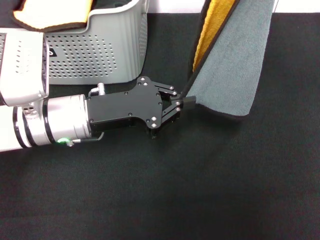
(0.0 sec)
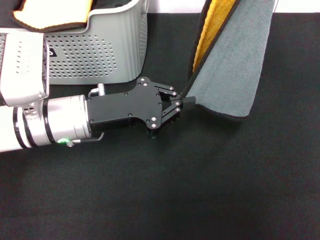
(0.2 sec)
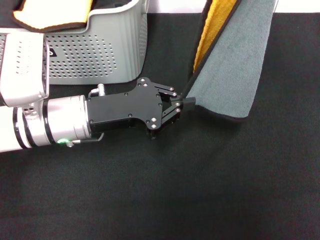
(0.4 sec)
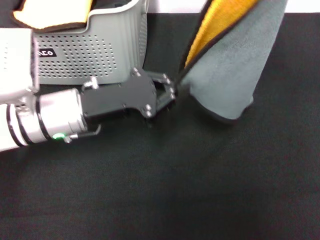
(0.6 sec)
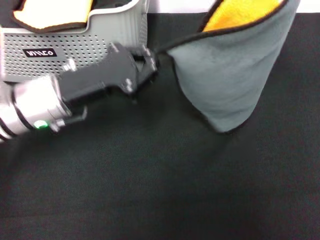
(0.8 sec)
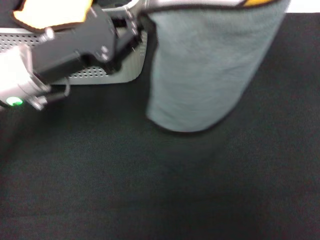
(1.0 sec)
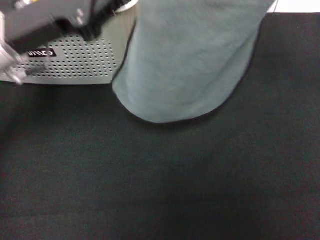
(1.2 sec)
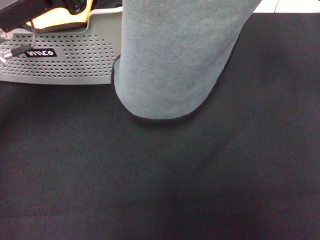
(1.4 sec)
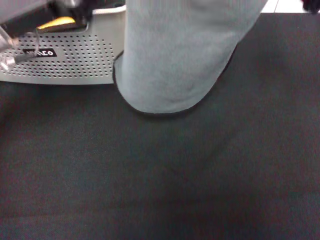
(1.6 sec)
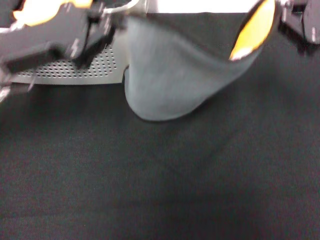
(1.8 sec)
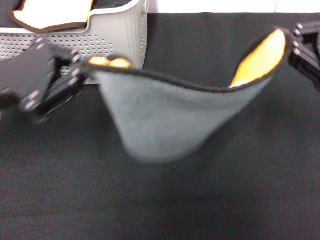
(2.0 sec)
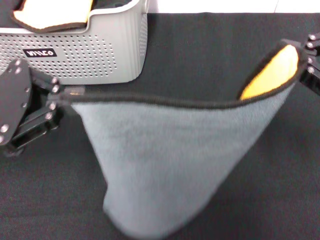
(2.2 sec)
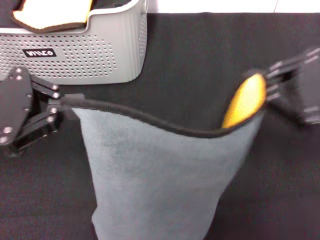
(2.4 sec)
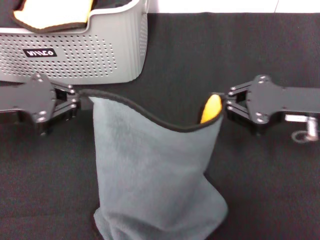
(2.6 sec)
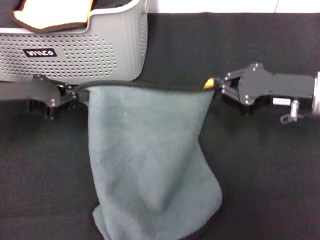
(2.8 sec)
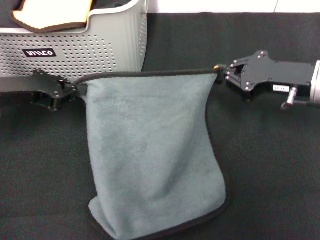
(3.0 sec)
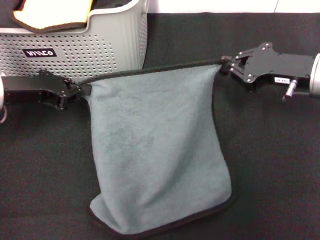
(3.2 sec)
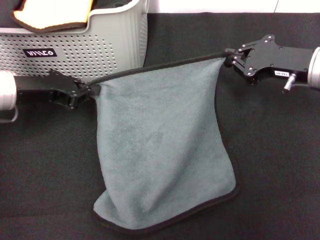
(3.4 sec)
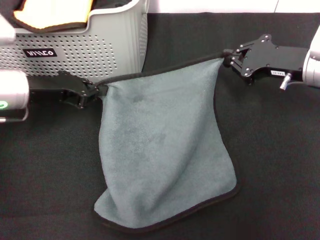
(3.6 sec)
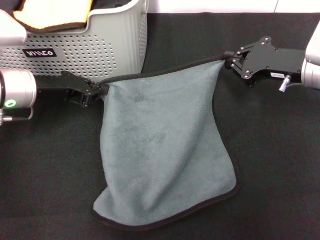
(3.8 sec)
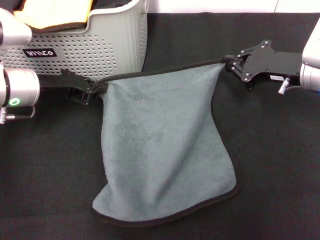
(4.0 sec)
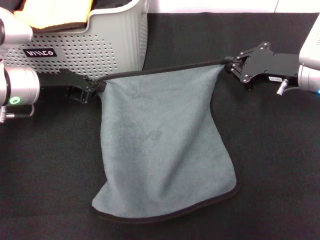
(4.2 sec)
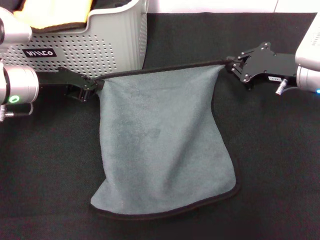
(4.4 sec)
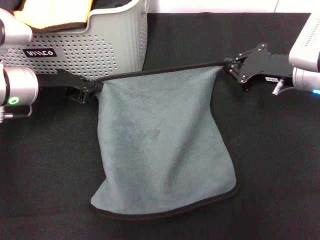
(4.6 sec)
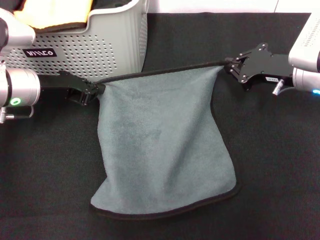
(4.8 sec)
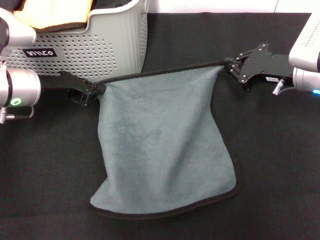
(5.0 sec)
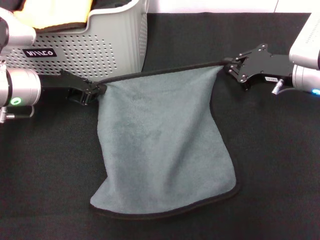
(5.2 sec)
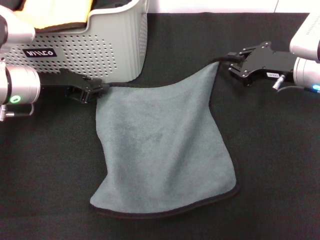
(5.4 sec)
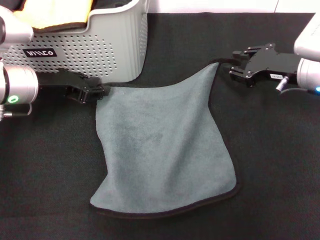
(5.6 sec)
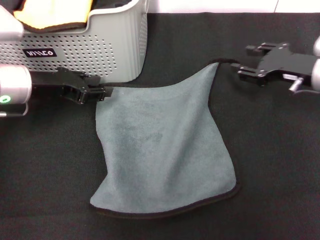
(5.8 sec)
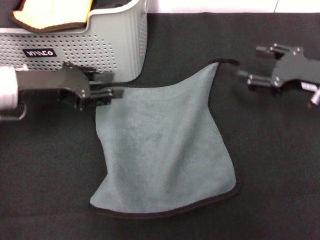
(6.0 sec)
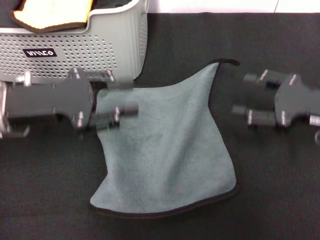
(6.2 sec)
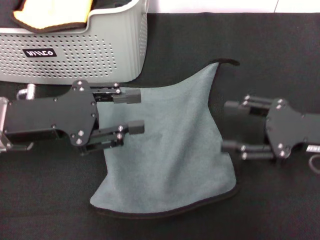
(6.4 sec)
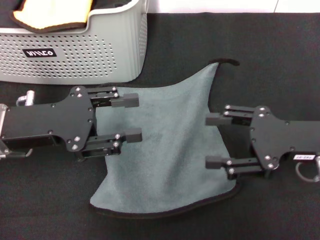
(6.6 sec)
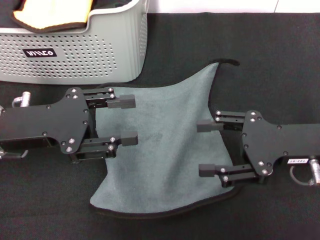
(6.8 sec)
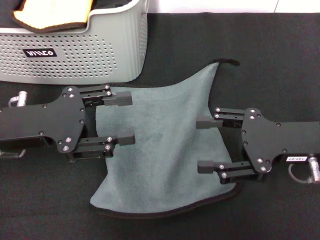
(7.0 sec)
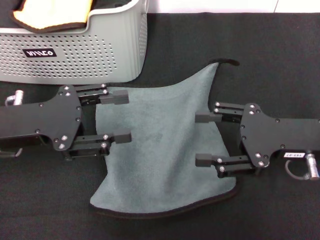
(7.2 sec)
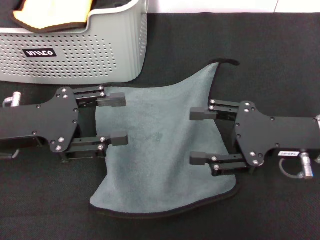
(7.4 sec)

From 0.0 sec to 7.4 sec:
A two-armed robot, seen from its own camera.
Task of the whole recording: pick up the towel from the storage box and lay it flat on the black tablecloth.
Step, from 0.0 sec to 5.4 sec: Spread the towel flat with the right gripper.
From 0.0 sec to 1.4 sec: The right gripper heads downward, covering some 5 cm; the left gripper heads upward and to the left, covering approximately 15 cm.
From 1.4 sec to 3.0 sec: Both grippers travel together downward and to the left, roughly 10 cm. The right gripper moves roughly 10 cm backward and comes back, while the left gripper moves some 10 cm backward and comes back.
From 3.0 sec to 4.4 sec: The left gripper moves some 5 cm.
From 4.4 sec to 6.0 sec: The right gripper ends up some 5 cm from where it was, and opens; the left gripper opens up.
From 6.0 sec to 7.4 sec: The left gripper shifts approximately 5 cm backward; the right gripper is displaced backward and to the left by approximately 10 cm.
